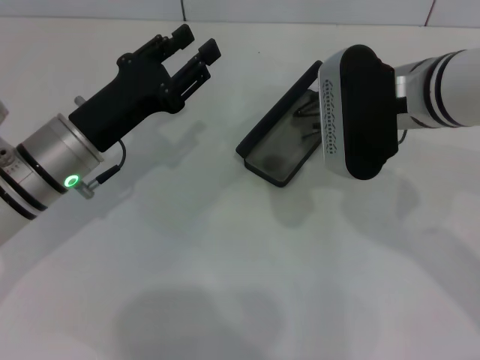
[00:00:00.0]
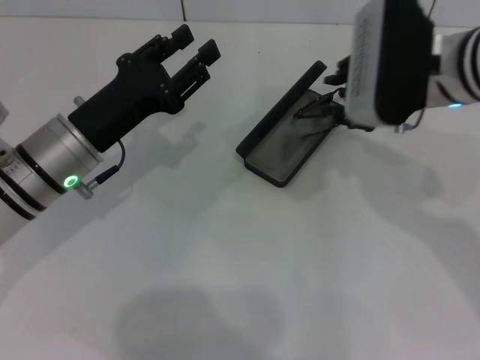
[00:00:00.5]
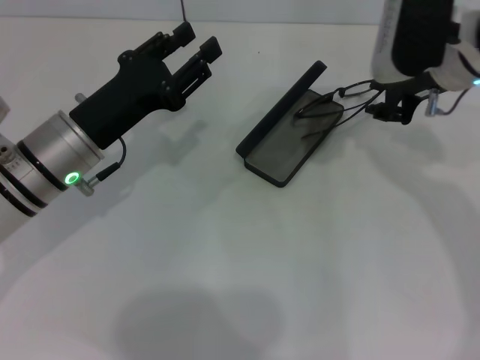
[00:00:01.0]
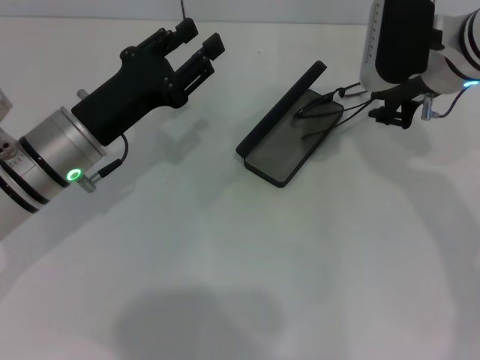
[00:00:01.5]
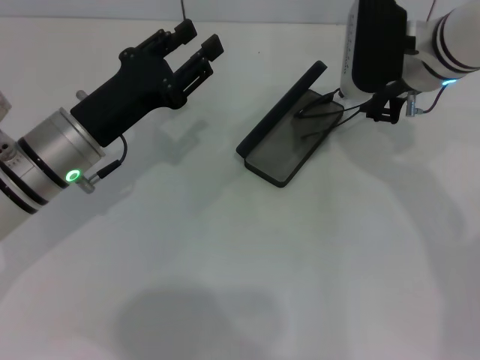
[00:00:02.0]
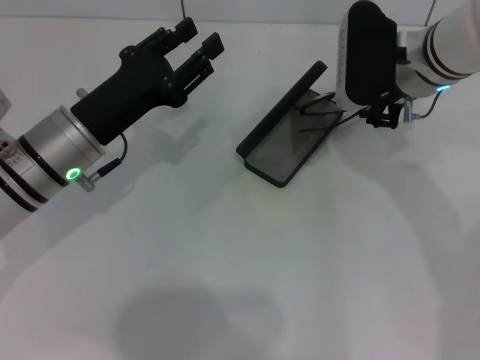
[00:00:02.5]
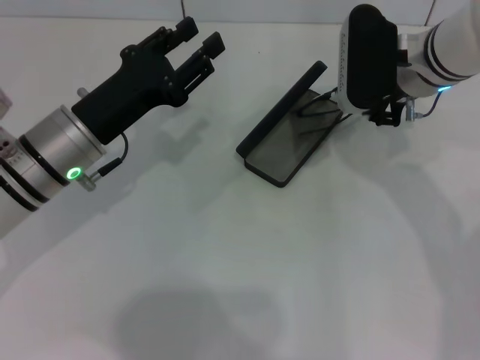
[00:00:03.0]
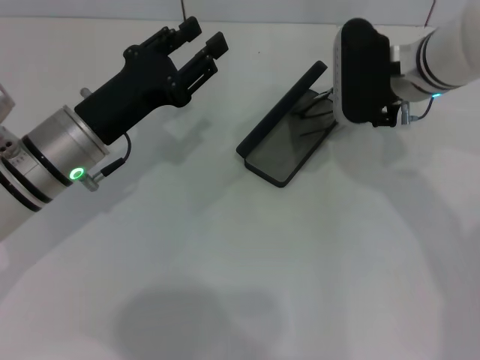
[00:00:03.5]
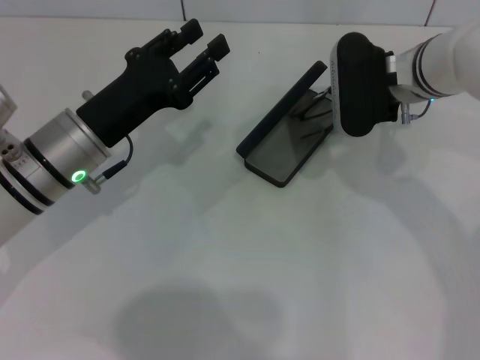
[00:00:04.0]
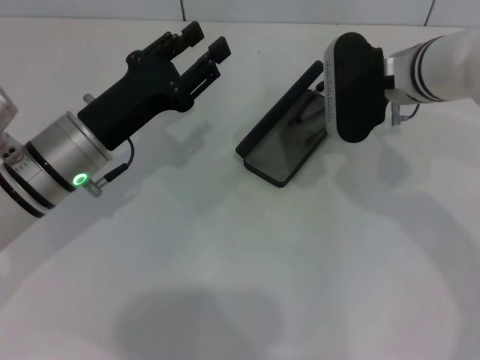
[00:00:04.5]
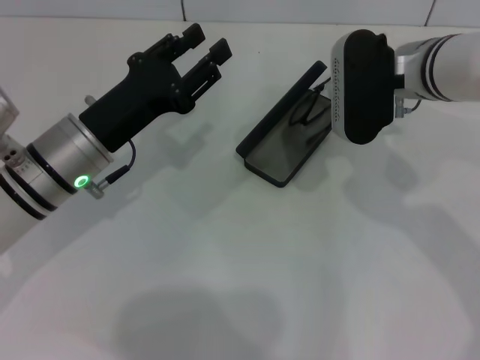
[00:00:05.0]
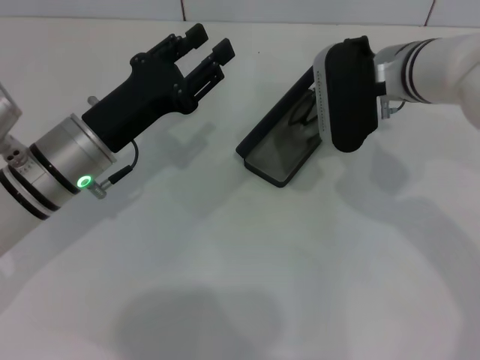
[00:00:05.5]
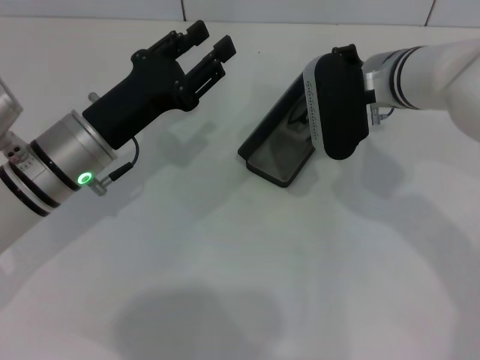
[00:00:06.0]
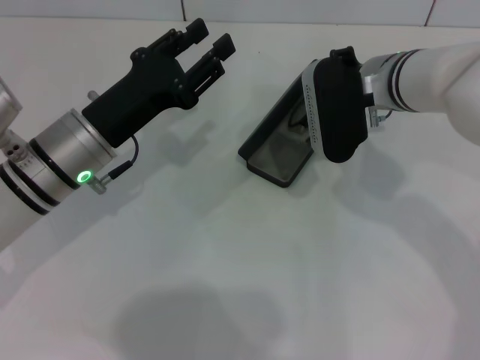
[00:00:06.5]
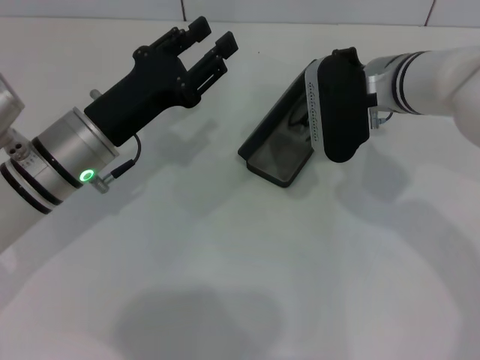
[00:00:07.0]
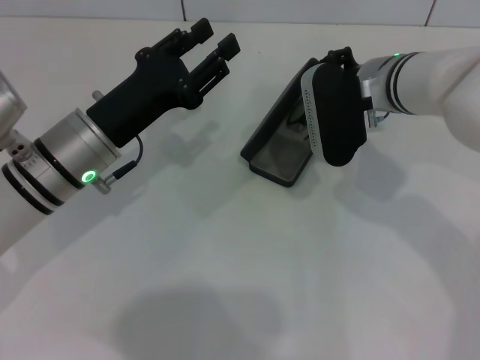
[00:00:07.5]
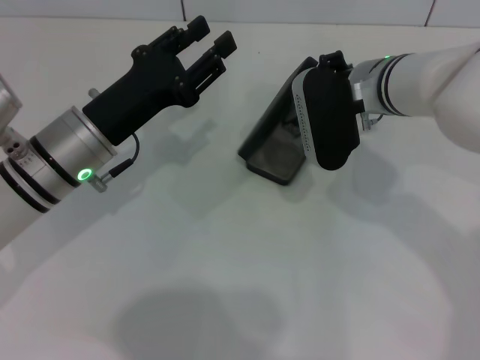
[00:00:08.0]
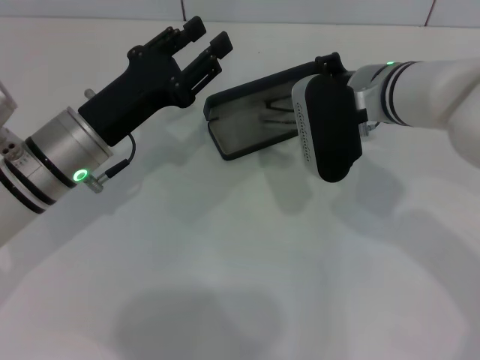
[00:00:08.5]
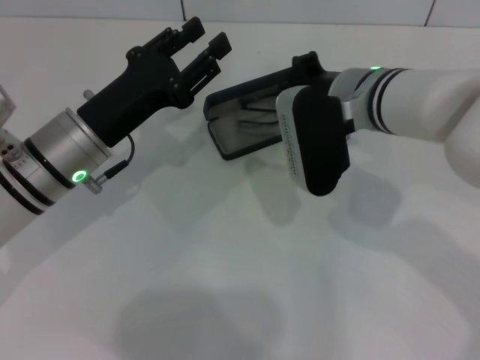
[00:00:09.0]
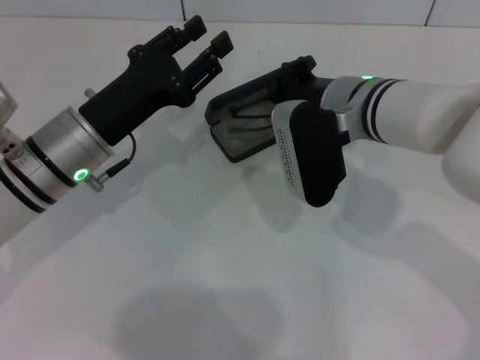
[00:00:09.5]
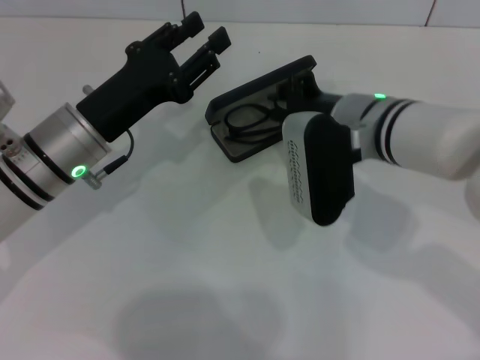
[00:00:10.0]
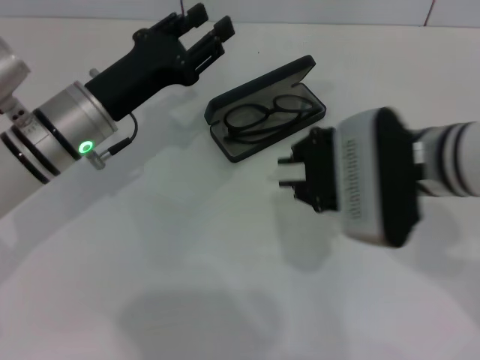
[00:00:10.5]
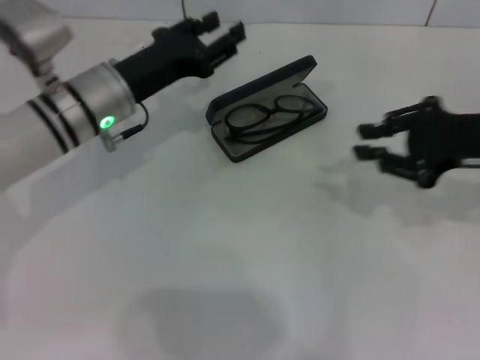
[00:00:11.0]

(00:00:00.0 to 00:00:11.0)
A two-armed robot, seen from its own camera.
Step, 00:00:00.0 - 00:00:09.5: Put the glasses into the case with your right hand.
00:00:00.0 - 00:00:02.0: The right gripper heads forward, covering approximately 10 cm.
00:00:02.0 - 00:00:03.5: There are only small adjustments of the grippers.
00:00:03.5 - 00:00:07.5: There are only small adjustments of the grippers.
00:00:07.5 - 00:00:09.0: The right gripper closes up.
00:00:09.0 - 00:00:11.0: The left gripper moves forward, some 5 cm. The right gripper is displaced to the right by roughly 15 cm.

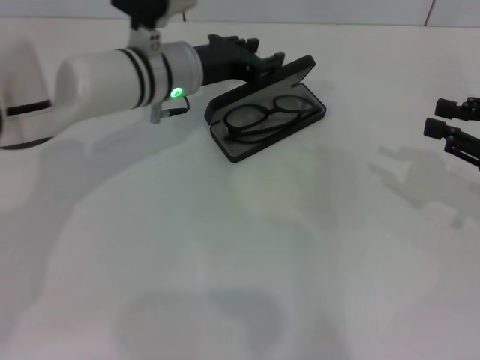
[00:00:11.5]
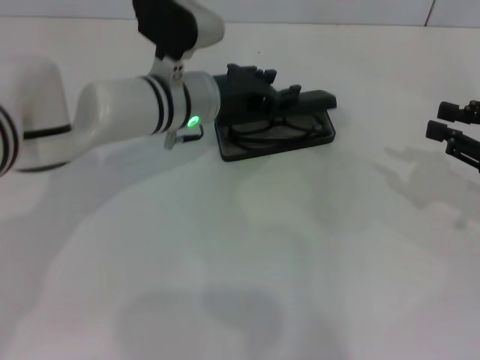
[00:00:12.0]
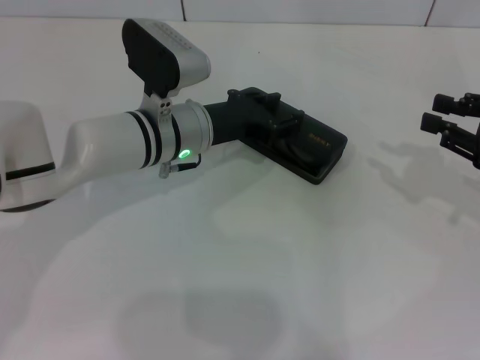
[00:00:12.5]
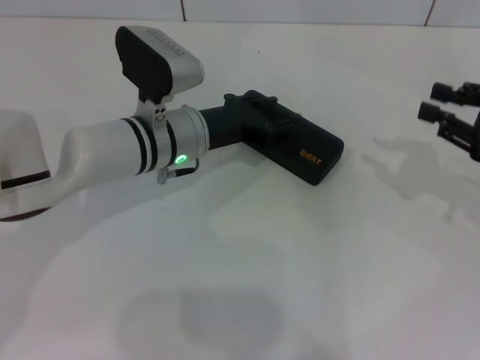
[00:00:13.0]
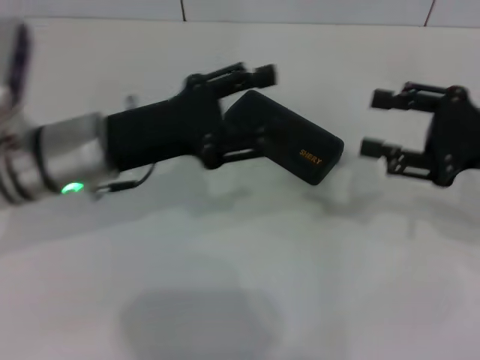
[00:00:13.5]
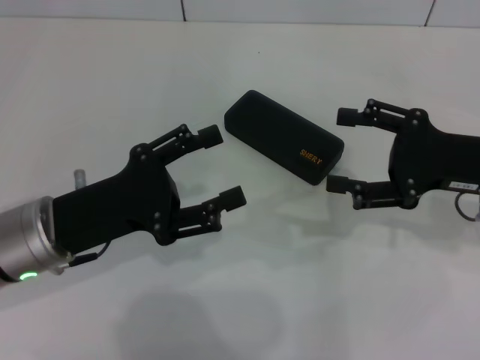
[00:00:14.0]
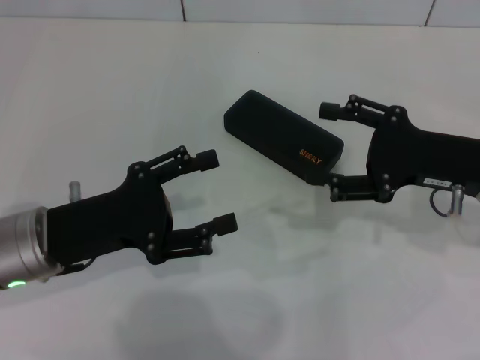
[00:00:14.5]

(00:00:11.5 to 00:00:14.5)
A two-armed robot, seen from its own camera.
00:00:11.5 - 00:00:13.0: The left gripper goes approximately 5 cm backward.
00:00:13.0 - 00:00:14.5: The right gripper goes approximately 10 cm to the left, and opens; the left gripper shifts roughly 20 cm backward and to the left, and opens up.

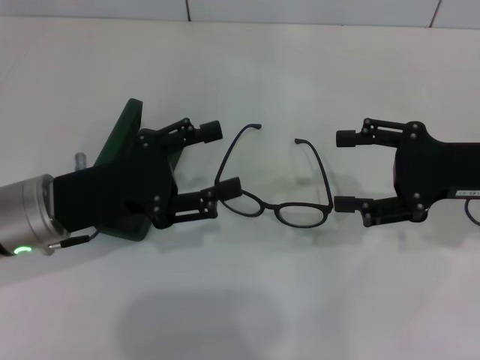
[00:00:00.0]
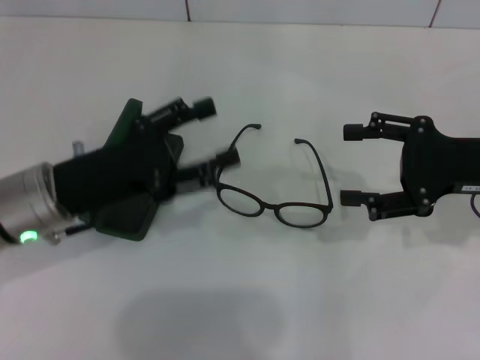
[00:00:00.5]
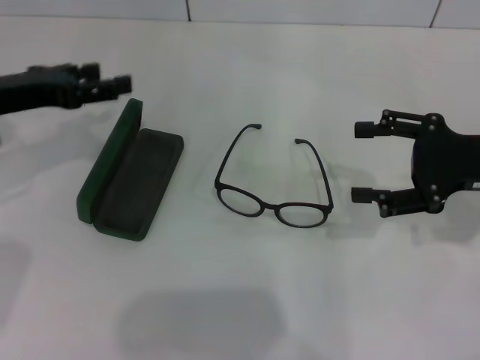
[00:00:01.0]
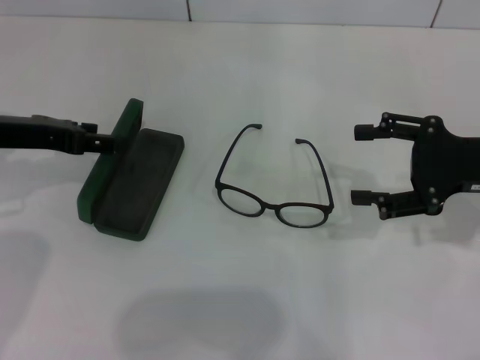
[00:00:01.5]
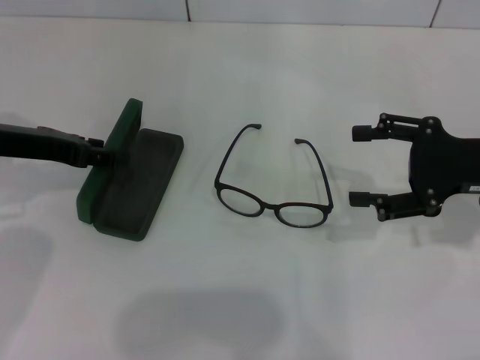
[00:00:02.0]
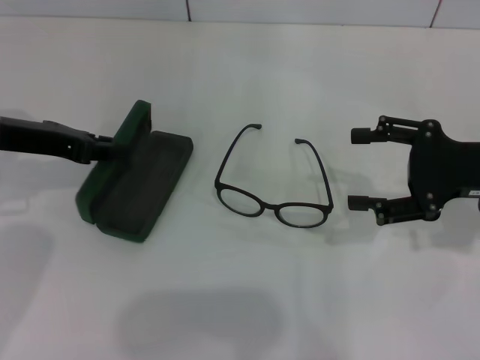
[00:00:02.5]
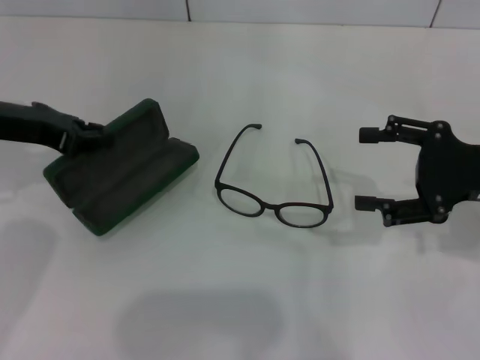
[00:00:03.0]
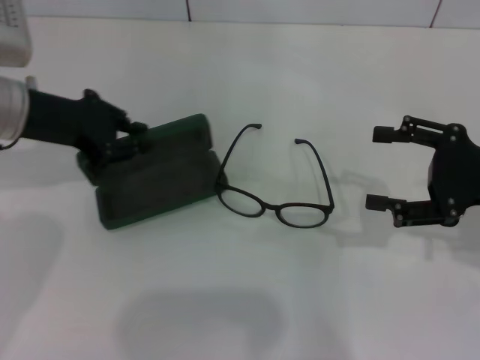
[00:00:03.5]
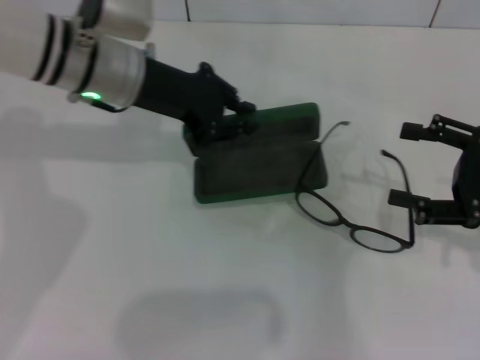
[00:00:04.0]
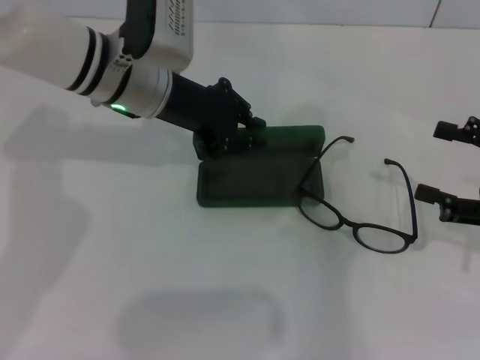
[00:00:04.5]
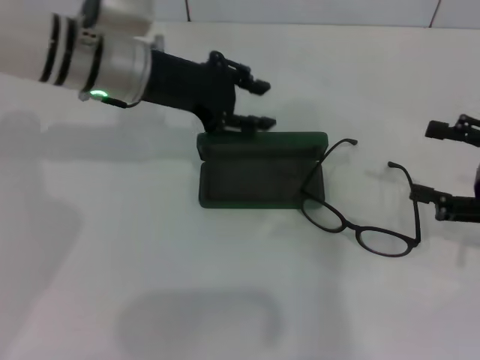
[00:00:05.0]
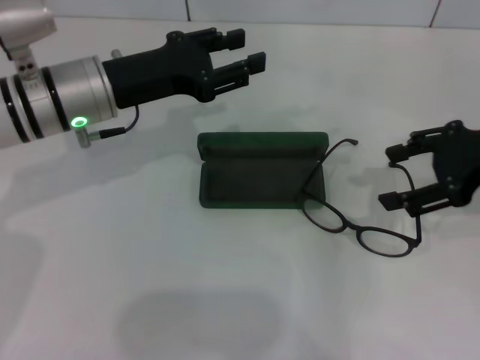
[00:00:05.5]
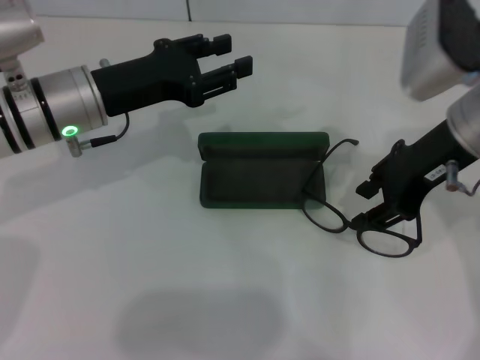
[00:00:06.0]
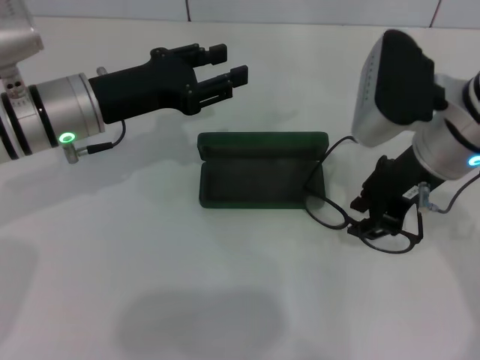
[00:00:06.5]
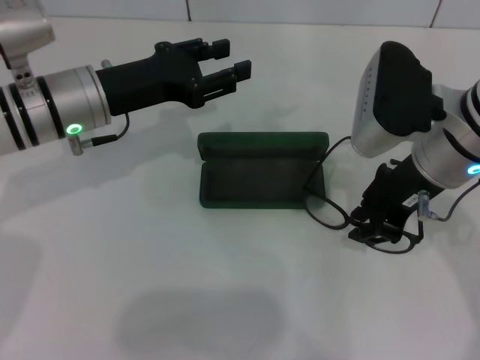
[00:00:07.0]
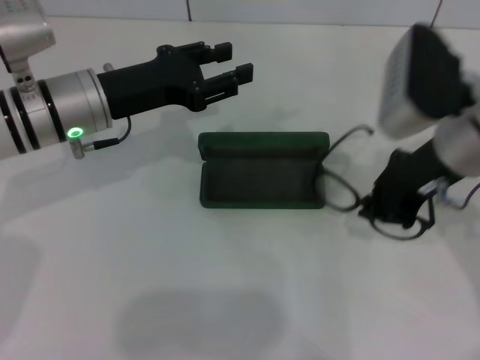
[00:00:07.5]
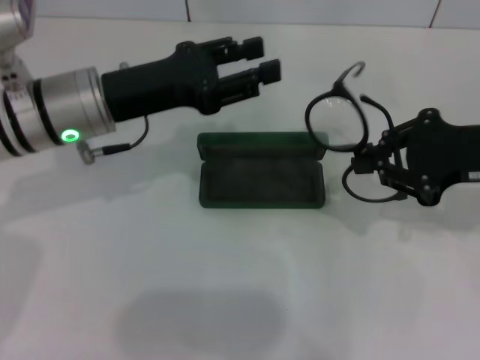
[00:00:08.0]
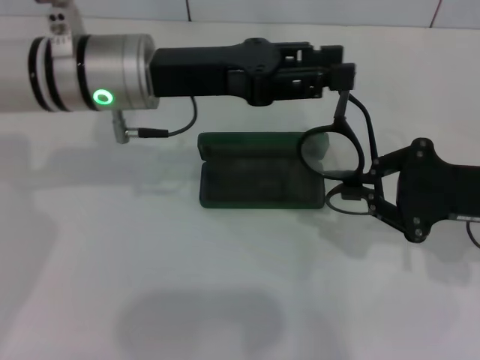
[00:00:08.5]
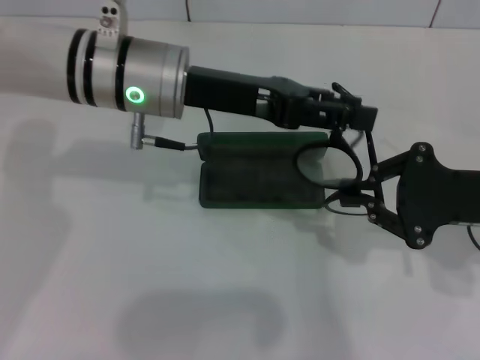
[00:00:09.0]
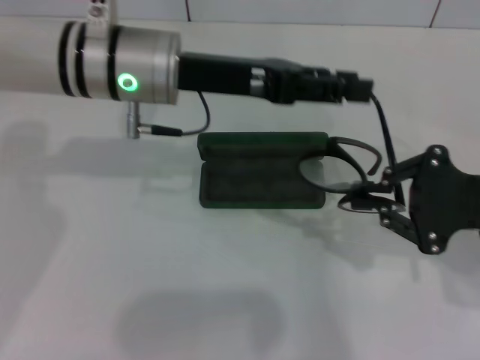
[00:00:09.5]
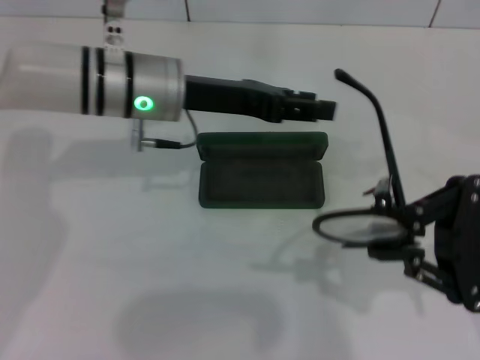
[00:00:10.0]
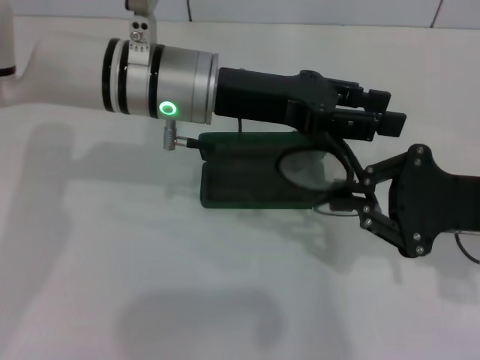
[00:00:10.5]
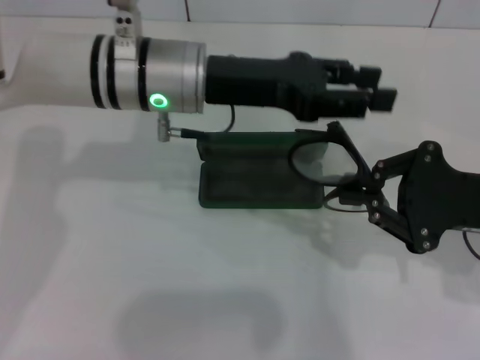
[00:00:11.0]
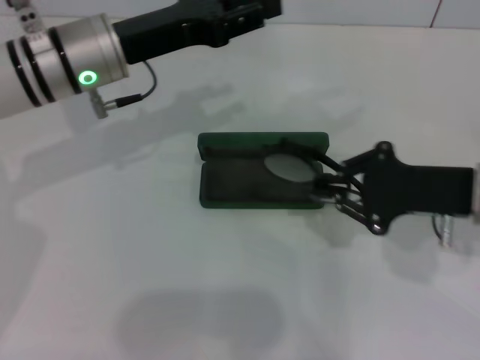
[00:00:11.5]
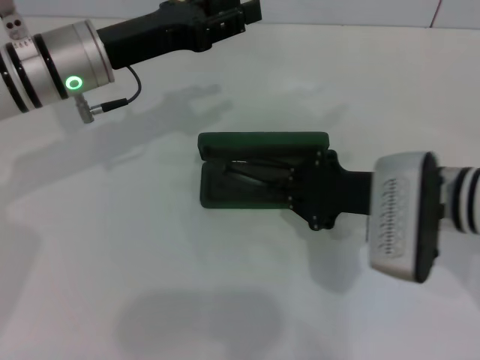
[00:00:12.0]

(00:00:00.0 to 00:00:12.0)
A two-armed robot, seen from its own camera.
Step, 00:00:00.0 - 00:00:02.5: Grab the glasses case with your left hand.
Step, 00:00:03.0 - 00:00:04.5: Place the glasses case in the center of the table with your left hand.
Step, 00:00:05.0 - 00:00:07.0: Grab the eyeglass frame with your right hand.
Step, 00:00:07.5 - 00:00:10.5: Lift the glasses with your right hand.
00:00:00.0 - 00:00:02.0: The left gripper moves forward and to the left, some 10 cm.
00:00:02.0 - 00:00:04.0: The right gripper shifts by approximately 5 cm, while the left gripper travels to the right and forward by roughly 15 cm, and closes.
00:00:04.0 - 00:00:06.0: The left gripper moves some 5 cm, and opens its fingers, while the right gripper is displaced to the left, upward and forward by about 15 cm.
00:00:06.0 - 00:00:08.0: The right gripper shifts about 10 cm to the right, and closes.
00:00:08.0 - 00:00:10.0: The left gripper moves to the right, approximately 5 cm, while the right gripper heads backward, covering roughly 5 cm.
00:00:10.0 - 00:00:12.0: The right gripper is displaced to the left and forward by some 15 cm; the left gripper shifts some 5 cm to the left.
